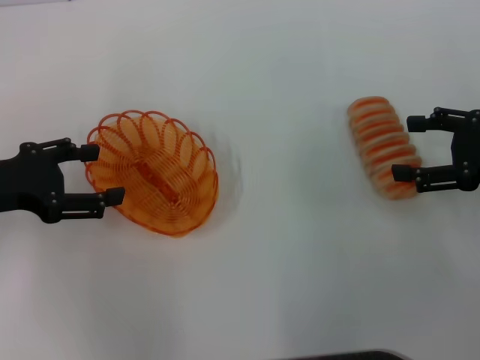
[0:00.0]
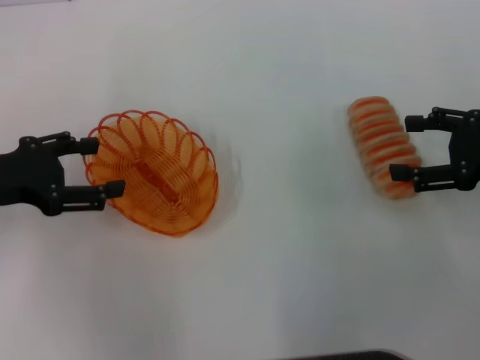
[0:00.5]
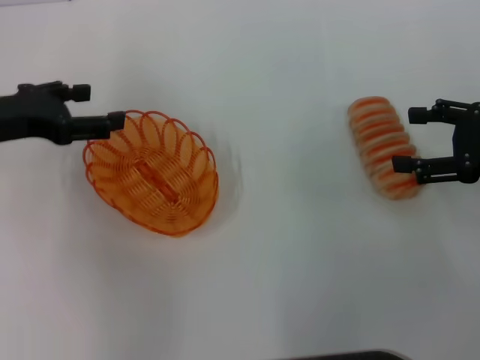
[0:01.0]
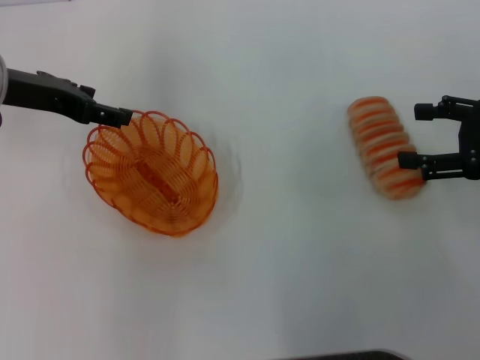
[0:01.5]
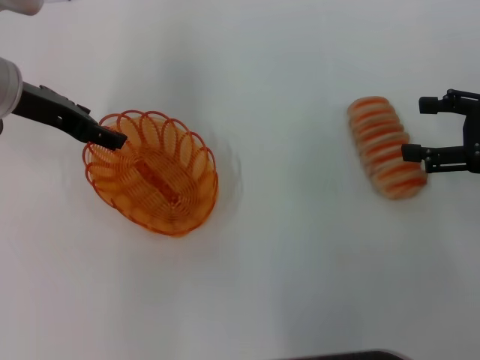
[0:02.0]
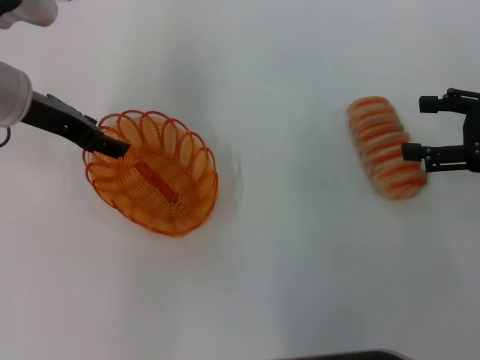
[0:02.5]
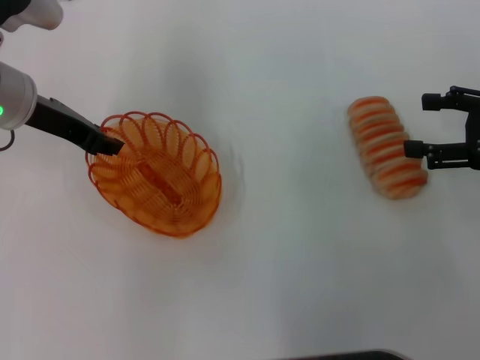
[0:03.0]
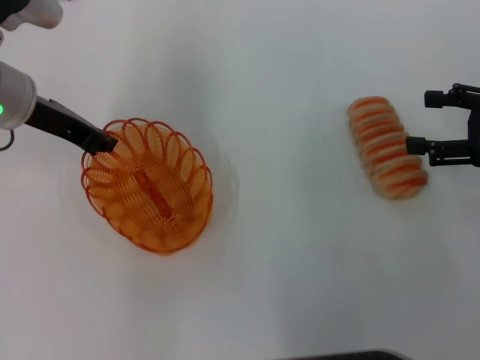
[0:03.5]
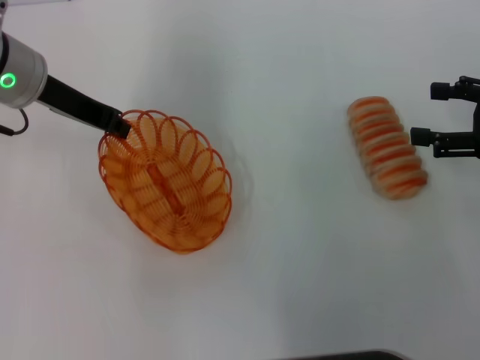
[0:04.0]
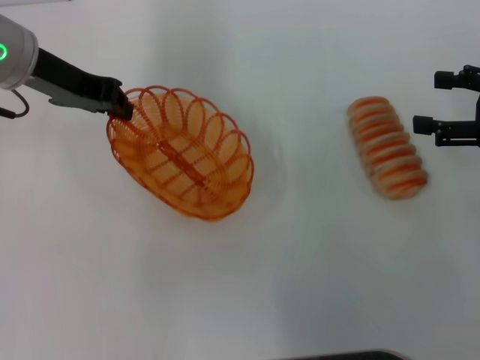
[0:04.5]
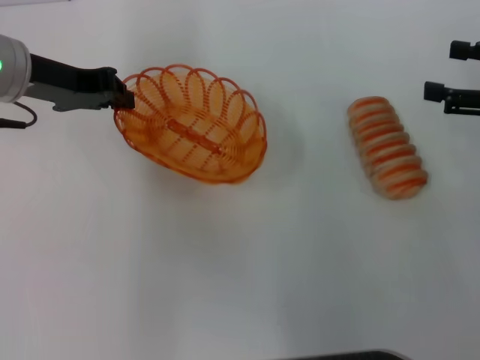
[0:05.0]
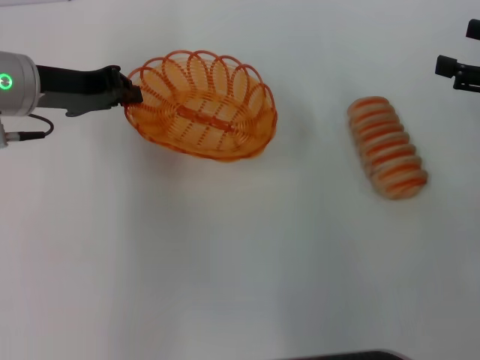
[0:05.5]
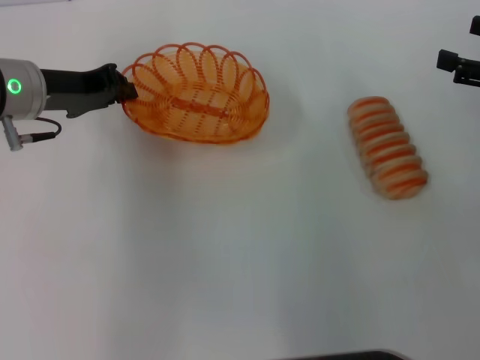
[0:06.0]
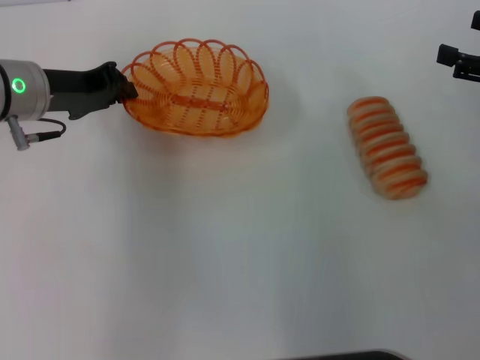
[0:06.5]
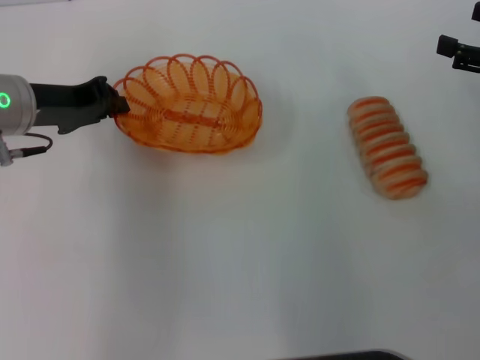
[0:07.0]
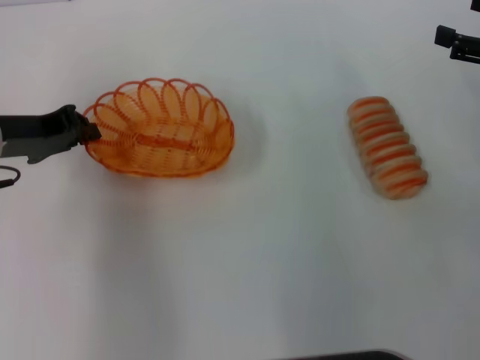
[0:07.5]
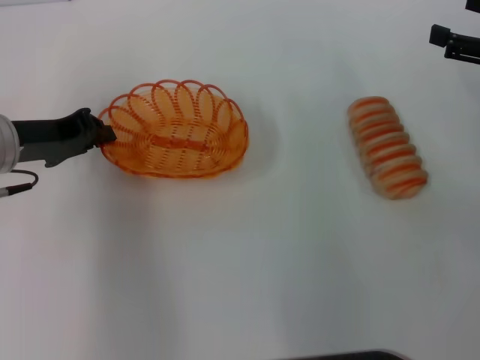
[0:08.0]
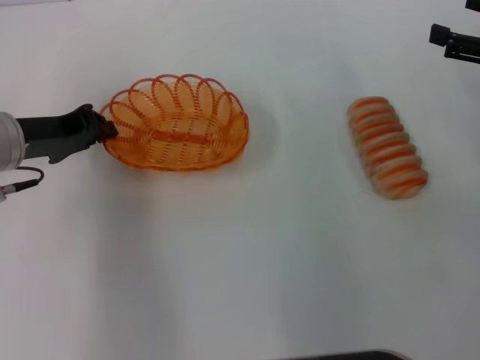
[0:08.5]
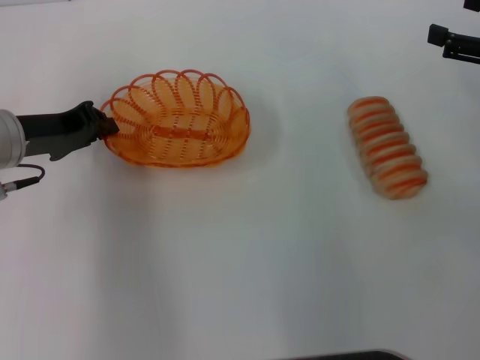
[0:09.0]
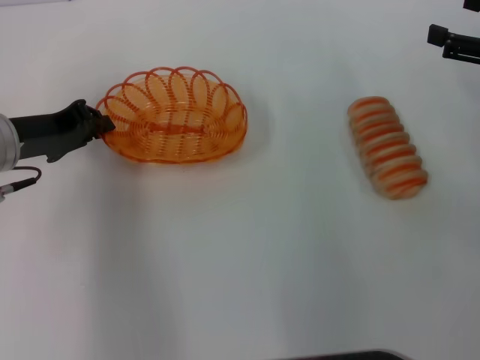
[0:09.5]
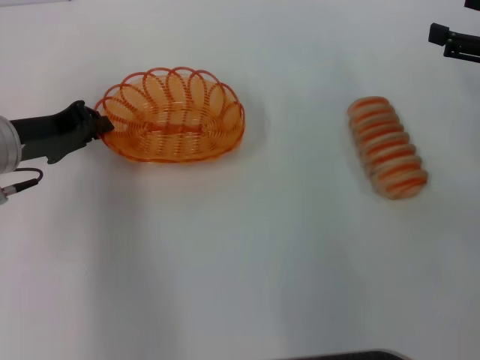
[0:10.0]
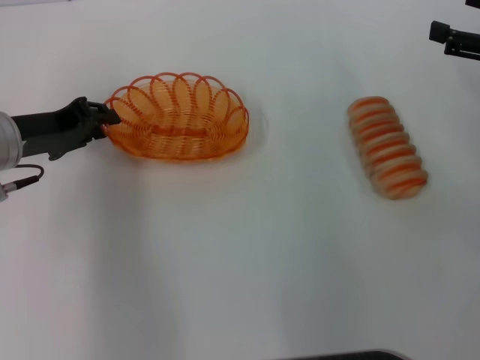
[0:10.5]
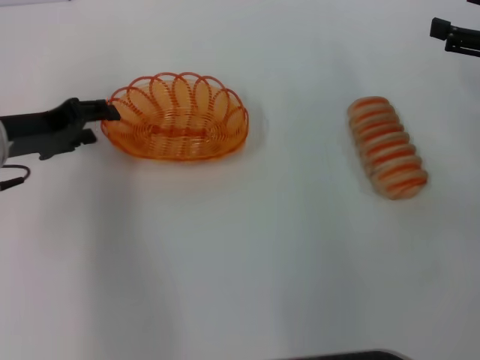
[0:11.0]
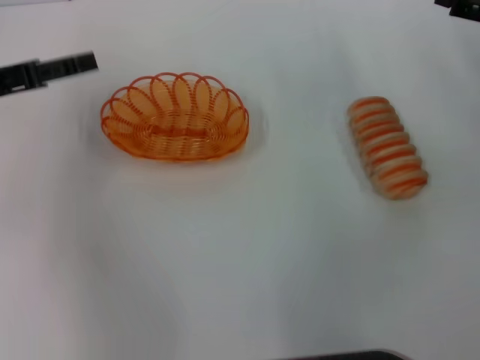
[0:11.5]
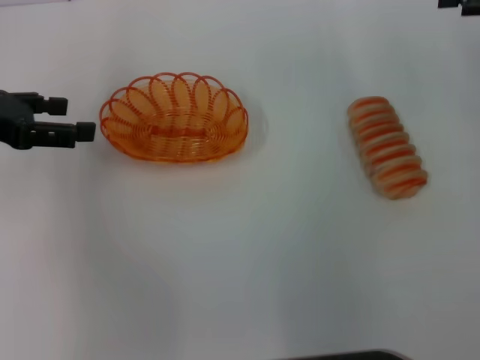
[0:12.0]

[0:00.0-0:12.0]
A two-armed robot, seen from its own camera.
Step, 0:00.0 to 0:04.0: Pick up the basket with the left gripper.
Step, 0:04.5 to 0:11.0: Place the basket in the center of view with the left gripper.
0:00.0 to 0:02.0: The left gripper shifts about 10 cm forward and to the right.
0:02.0 to 0:04.0: The left gripper closes up.
0:06.0 to 0:08.0: The left gripper changes place by roughly 5 cm.
0:08.0 to 0:10.0: The grippers make only small movements.
0:10.0 to 0:12.0: The left gripper shifts approximately 10 cm upward and to the left, and opens its fingers; the right gripper shifts about 5 cm upward.

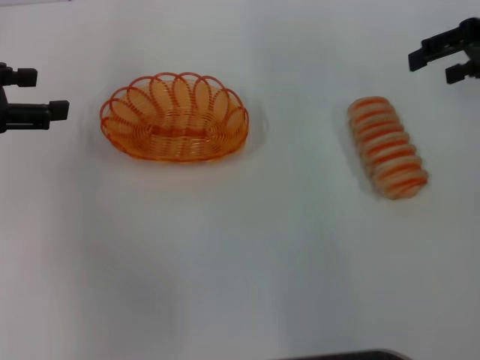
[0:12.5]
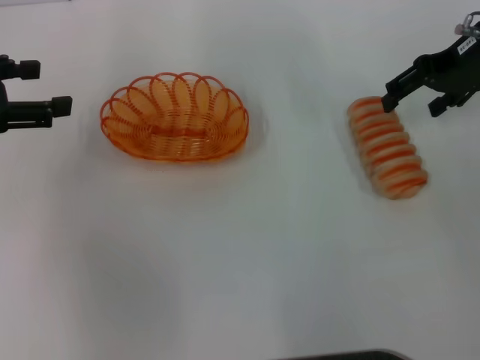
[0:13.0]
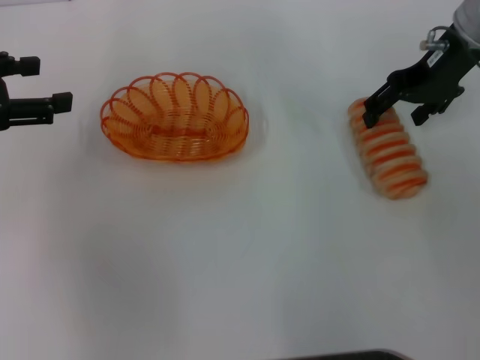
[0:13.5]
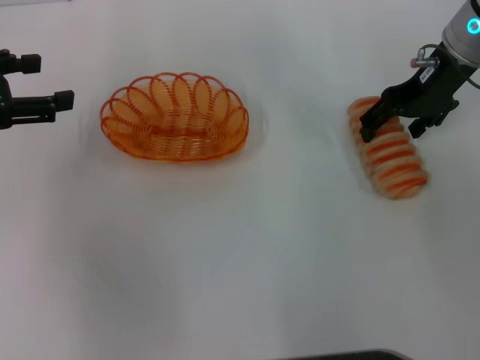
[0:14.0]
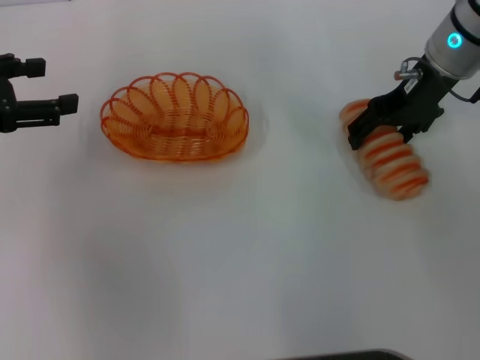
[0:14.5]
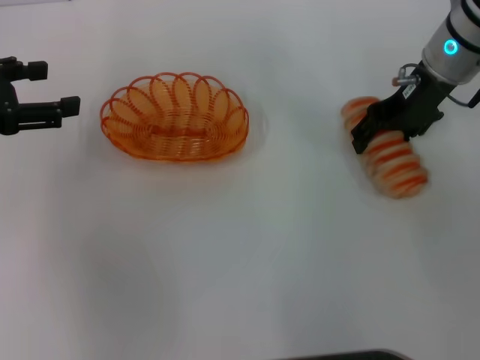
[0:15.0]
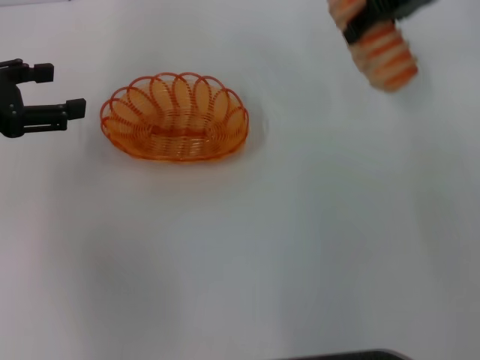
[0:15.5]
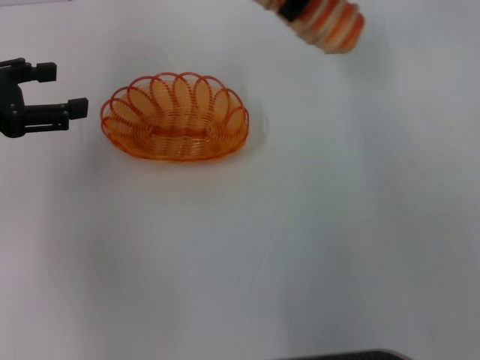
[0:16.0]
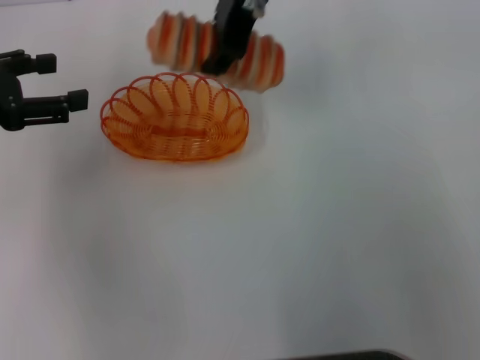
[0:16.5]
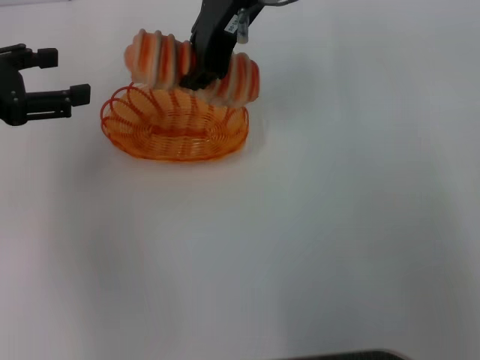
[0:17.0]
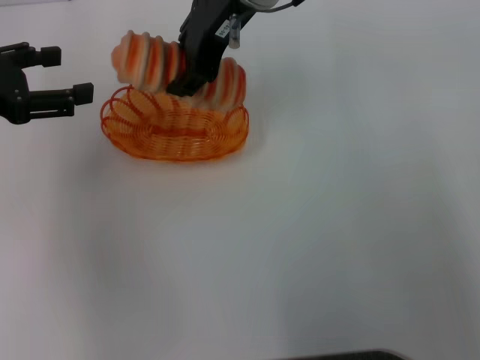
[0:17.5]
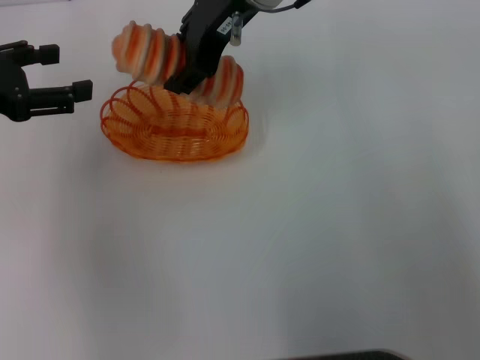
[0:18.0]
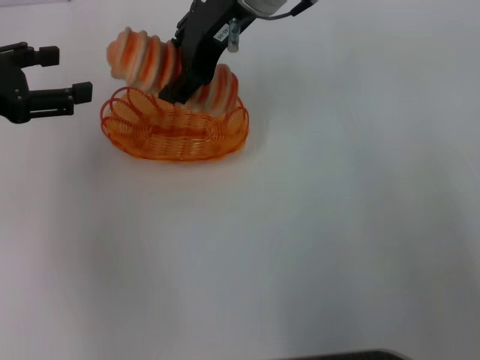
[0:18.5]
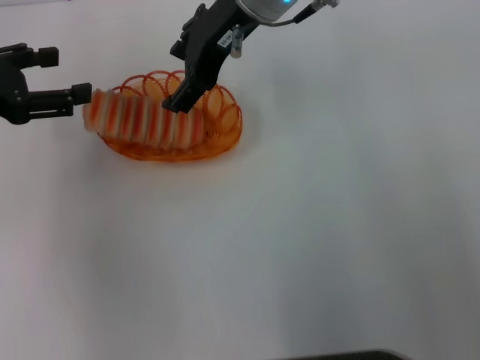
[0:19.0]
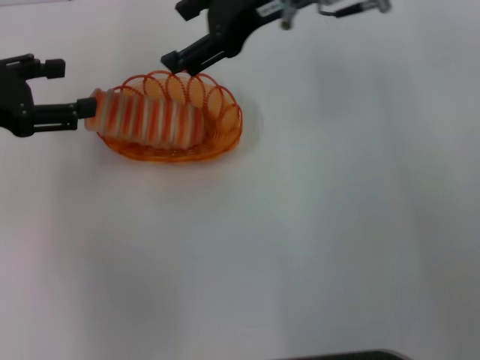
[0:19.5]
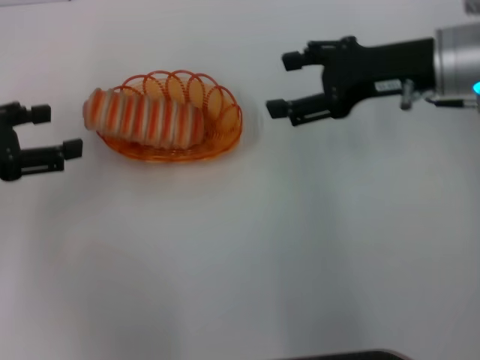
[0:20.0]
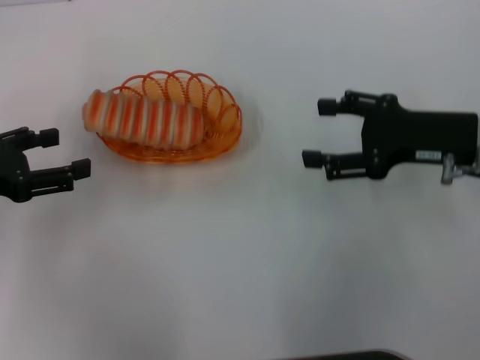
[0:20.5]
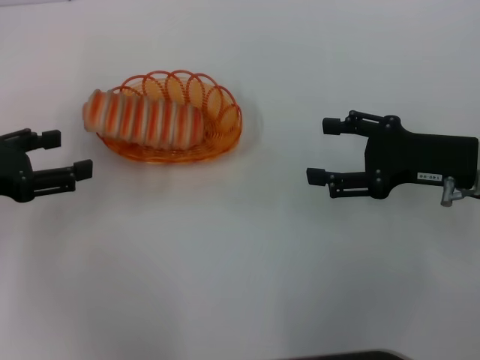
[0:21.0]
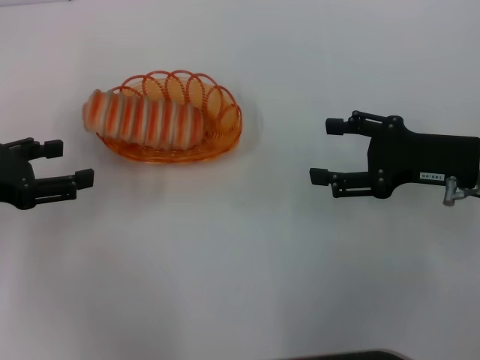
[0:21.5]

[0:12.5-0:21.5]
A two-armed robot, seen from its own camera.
Step, 0:12.5 to 0:15.0: Pick up the long bread with the right gripper.
Step, 0:15.5 to 0:19.0: Place the long bread into the basket with the right gripper.
0:12.5 to 0:14.5: The right gripper travels to the left and downward by approximately 10 cm.
0:14.5 to 0:17.0: The right gripper shifts some 20 cm to the left and upward, and closes.
0:17.0 to 0:19.5: The right gripper shifts about 10 cm to the right, and opens.
0:19.5 to 0:21.5: The right gripper shifts approximately 25 cm to the right, downward and backward; the left gripper goes approximately 5 cm downward.

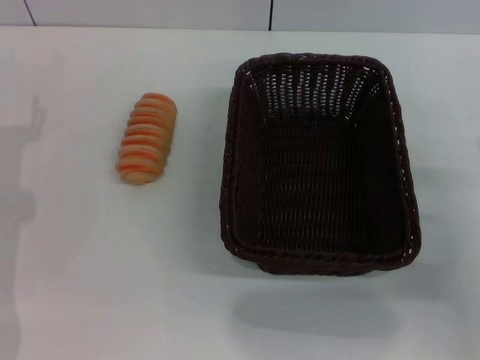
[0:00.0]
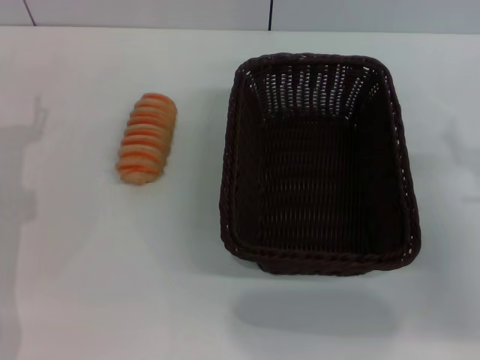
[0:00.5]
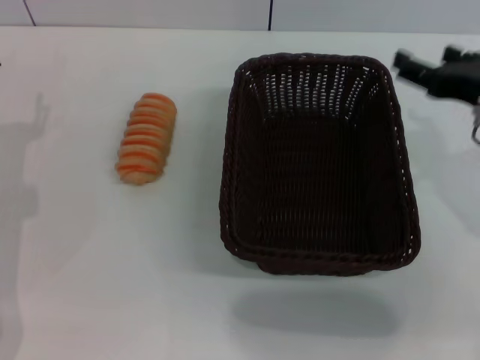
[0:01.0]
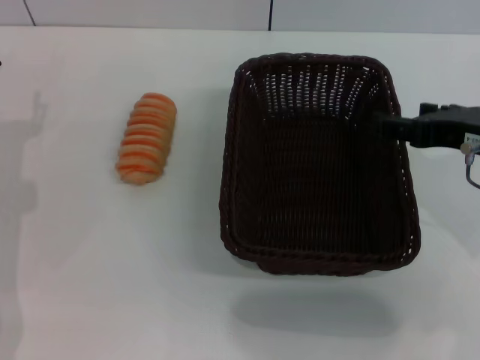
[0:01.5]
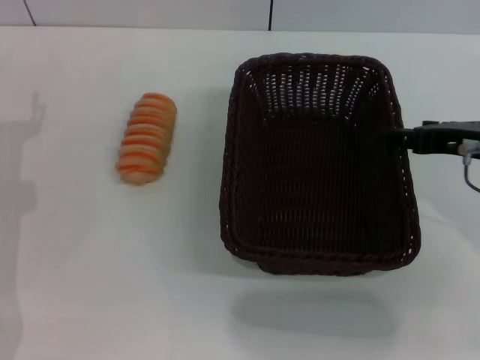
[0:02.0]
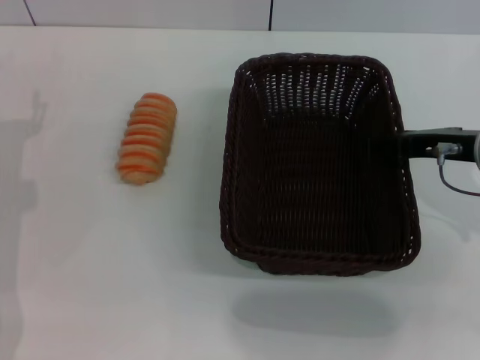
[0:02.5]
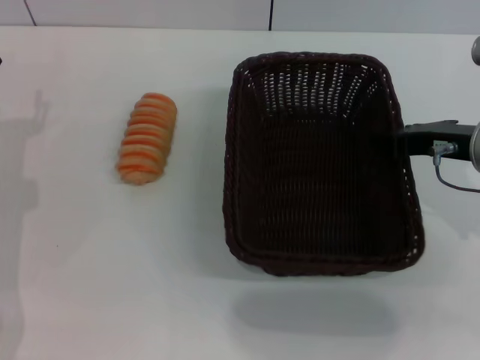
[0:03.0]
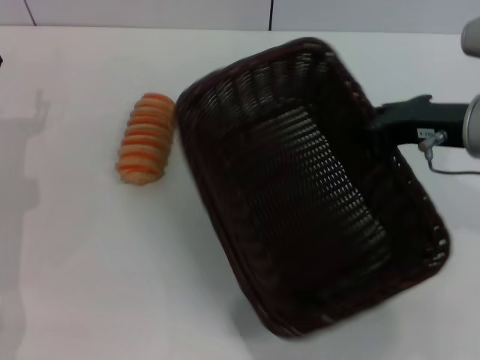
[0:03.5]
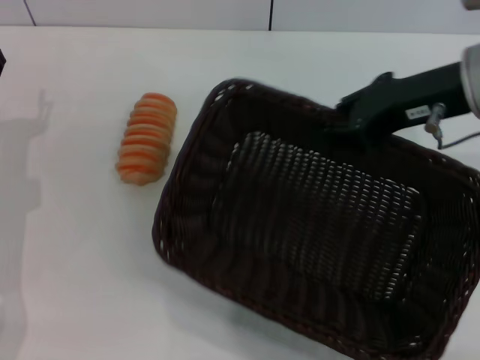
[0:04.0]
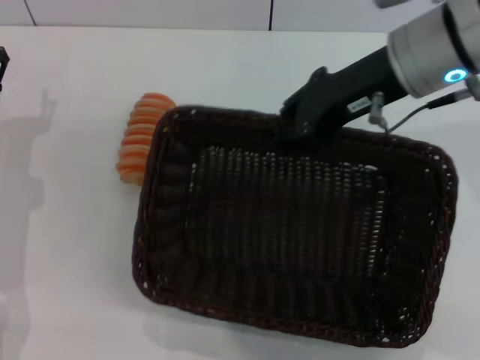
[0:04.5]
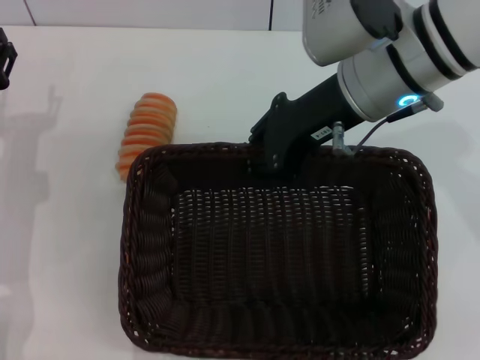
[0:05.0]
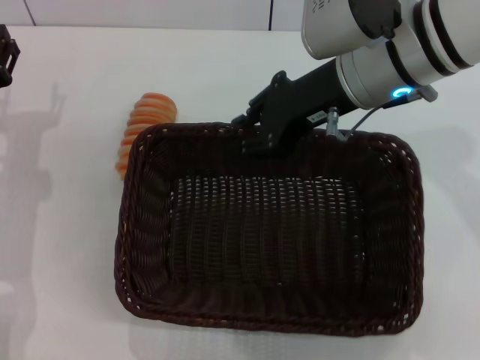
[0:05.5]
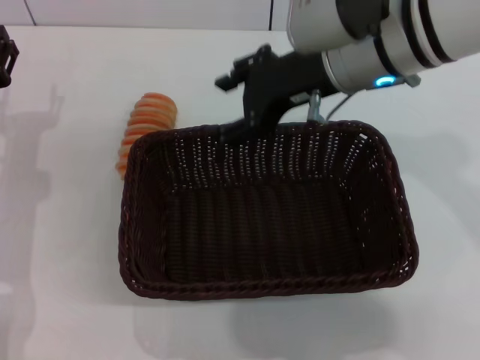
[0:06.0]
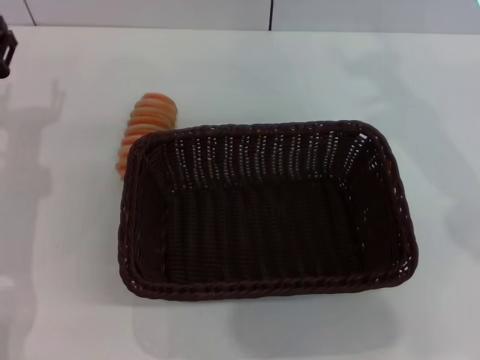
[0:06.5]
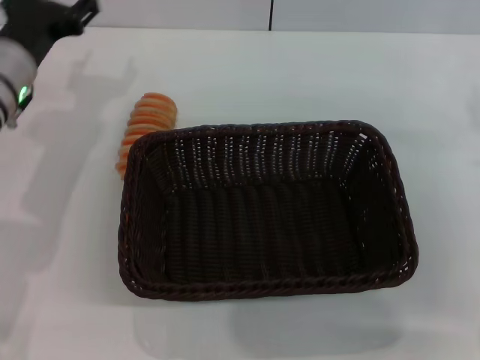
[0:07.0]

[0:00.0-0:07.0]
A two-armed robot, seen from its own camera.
Step, 0:00.0 to 0:03.0: Pick up the dark basket with the right gripper.
Step, 0:03.5 to 0:05.5: Place the dark basket in the center of view with the right gripper.
0:00.0 to 0:02.0: The right gripper travels upward and forward by approximately 10 cm.
0:02.0 to 0:03.5: The right gripper closes up.
0:03.5 to 0:05.0: The right gripper shifts some 10 cm to the left.
0:05.0 to 0:07.0: The right gripper goes about 20 cm to the right, downward and backward, and opens its fingers, while the left gripper is displaced upward and forward by roughly 10 cm.
